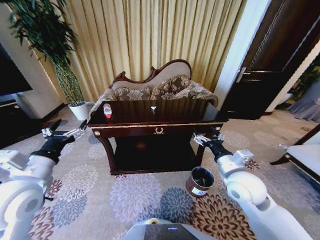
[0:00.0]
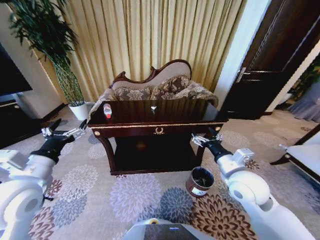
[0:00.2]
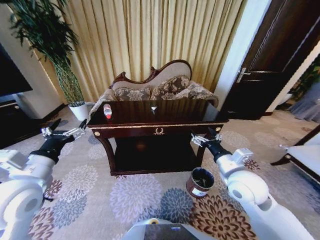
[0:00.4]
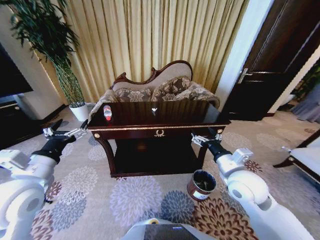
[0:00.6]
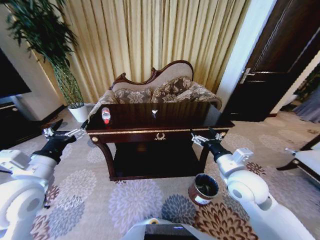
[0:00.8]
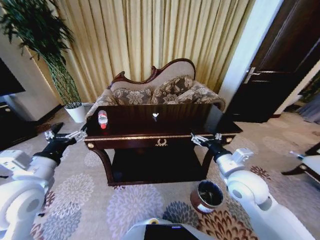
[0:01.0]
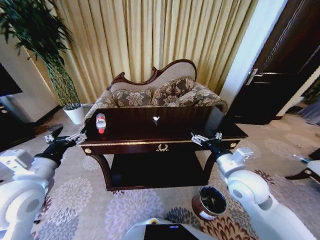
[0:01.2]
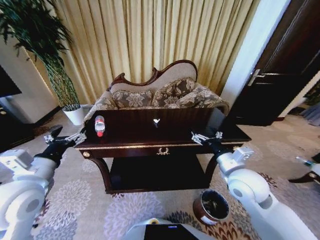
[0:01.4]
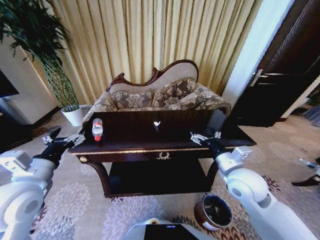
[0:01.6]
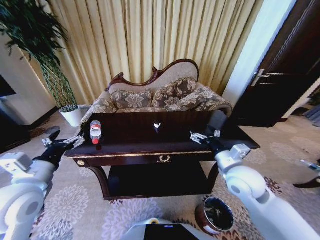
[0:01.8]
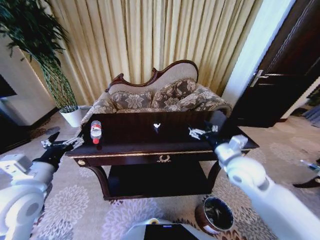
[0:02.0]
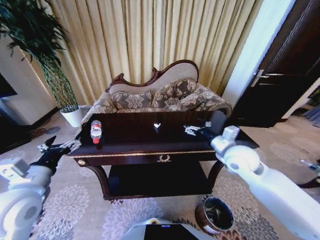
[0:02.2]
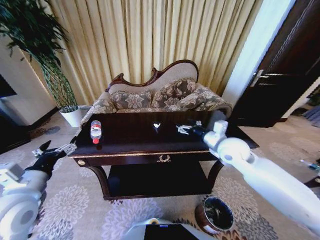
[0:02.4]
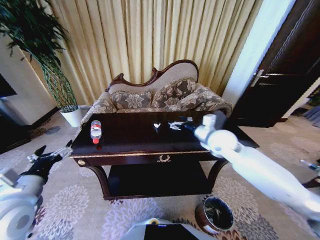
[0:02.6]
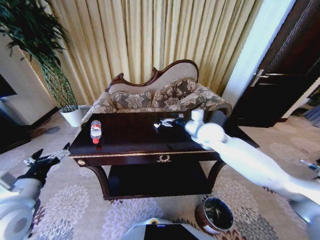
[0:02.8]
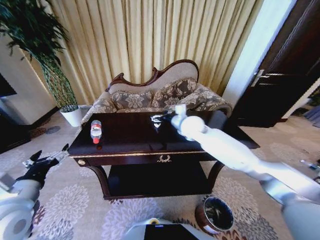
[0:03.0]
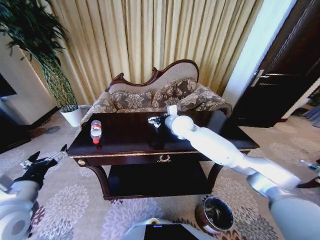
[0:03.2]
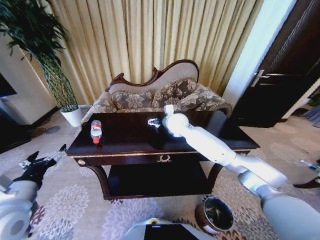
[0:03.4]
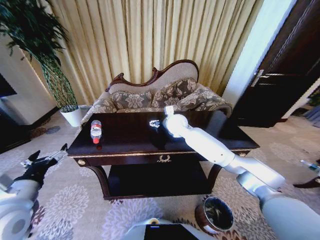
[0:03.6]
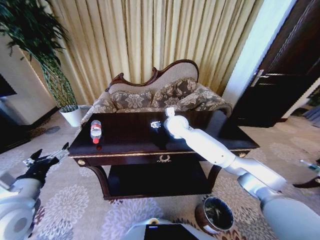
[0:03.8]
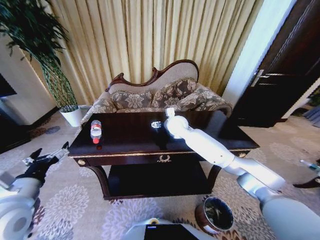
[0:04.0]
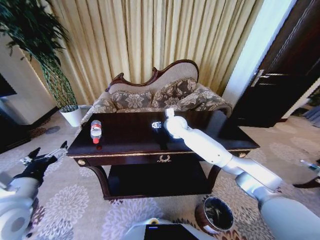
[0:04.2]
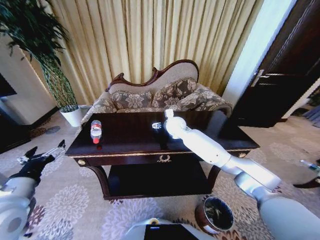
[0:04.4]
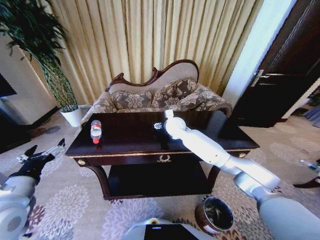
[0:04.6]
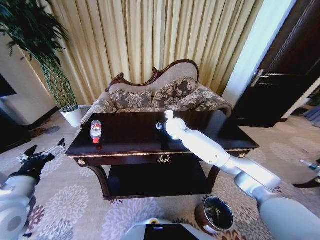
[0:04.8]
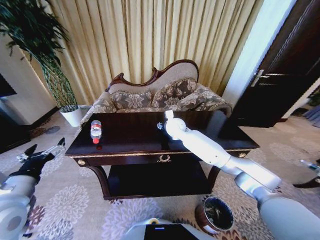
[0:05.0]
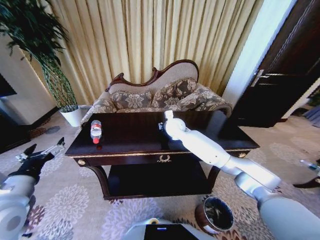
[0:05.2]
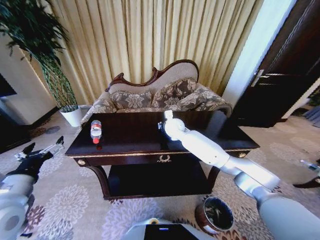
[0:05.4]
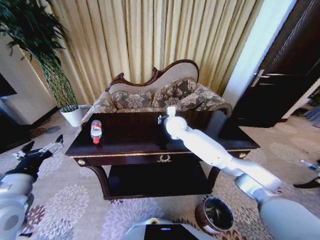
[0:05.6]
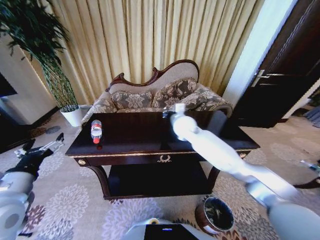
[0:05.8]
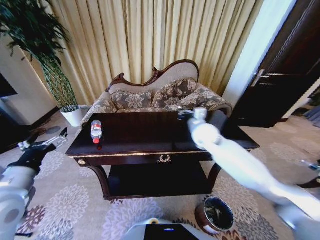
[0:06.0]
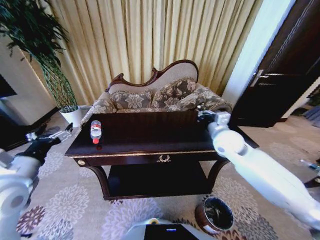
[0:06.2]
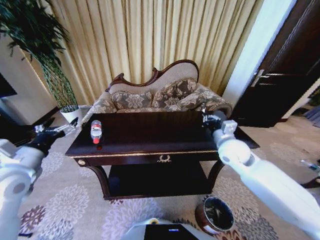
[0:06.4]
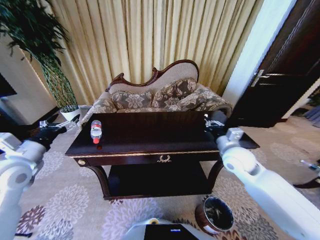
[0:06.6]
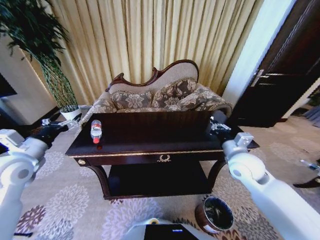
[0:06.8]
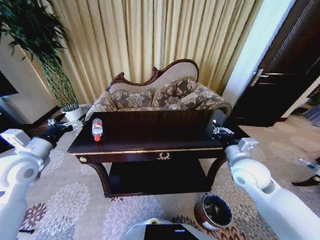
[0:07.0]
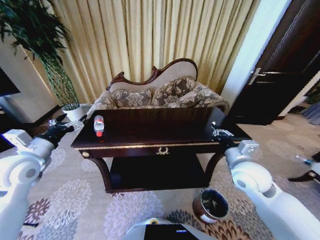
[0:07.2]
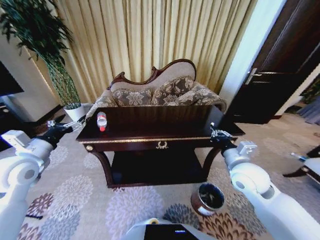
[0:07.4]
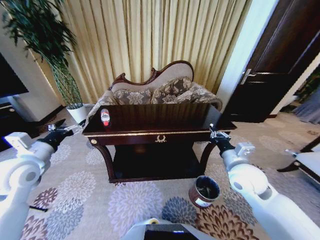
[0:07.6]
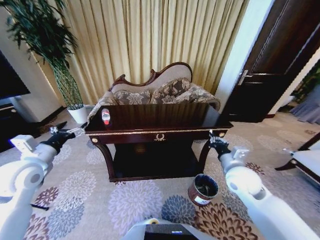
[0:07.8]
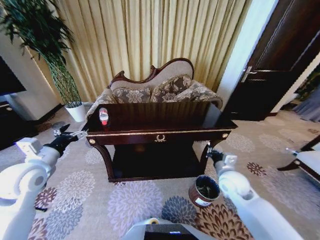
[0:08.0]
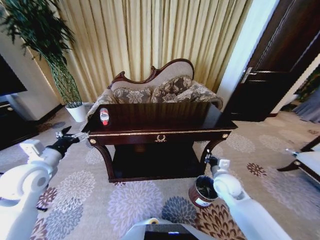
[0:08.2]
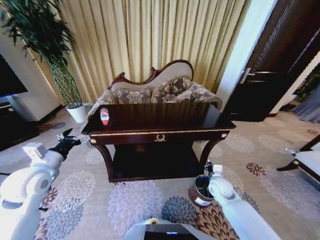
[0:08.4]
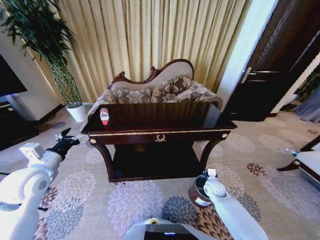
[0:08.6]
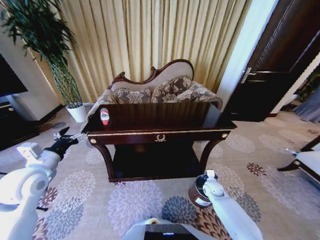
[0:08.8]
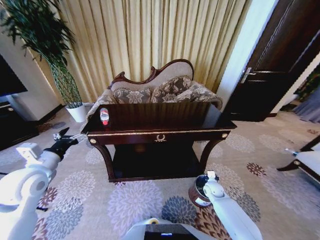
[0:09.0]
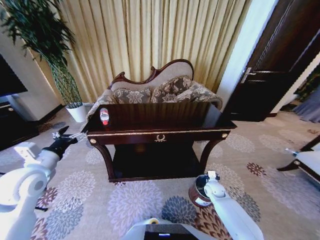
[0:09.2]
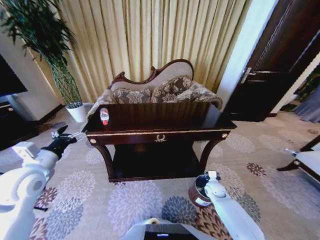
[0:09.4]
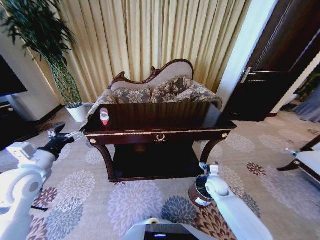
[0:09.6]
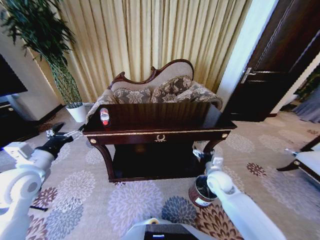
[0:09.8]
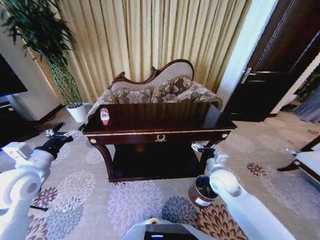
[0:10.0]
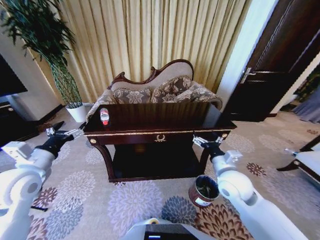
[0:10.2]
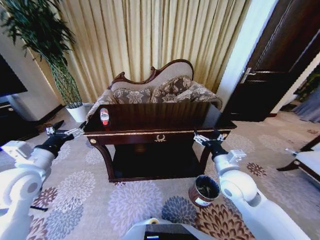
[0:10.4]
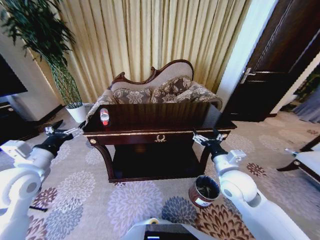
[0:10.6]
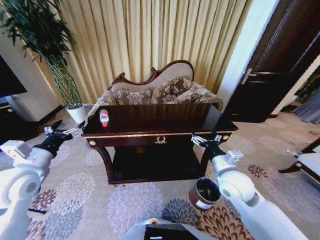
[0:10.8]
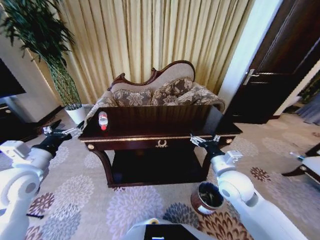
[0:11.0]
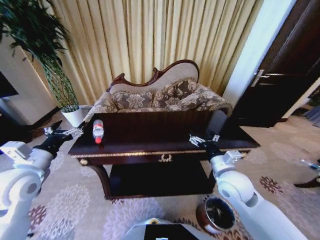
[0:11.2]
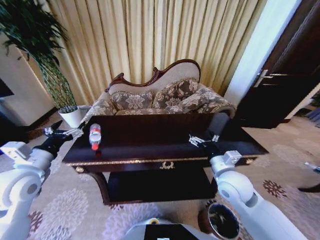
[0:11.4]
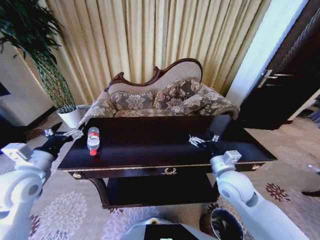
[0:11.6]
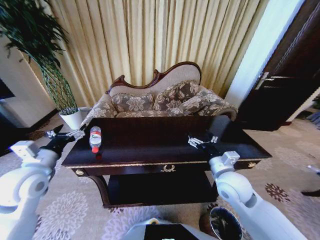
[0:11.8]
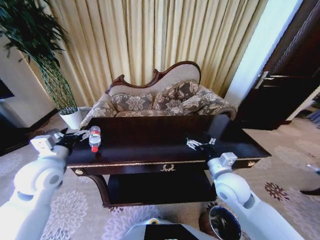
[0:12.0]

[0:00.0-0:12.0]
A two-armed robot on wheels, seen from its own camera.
Task of the whole recording: Move to the front of the table and place the trash on the table into the trash bin.
0:01.6 to 0:03.0: The right gripper goes approximately 25 cm forward and to the left. The left gripper ends up approximately 5 cm from where it was.
0:03.0 to 0:04.4: The right gripper is displaced to the left by roughly 5 cm.
0:04.4 to 0:06.0: The right gripper is displaced to the right and backward by roughly 15 cm, and closes.
0:06.0 to 0:07.6: The right gripper goes approximately 15 cm backward and to the right, while the left gripper heads forward, covering approximately 10 cm.
0:07.6 to 0:09.0: The right gripper shifts roughly 30 cm downward.
0:09.0 to 0:10.4: The right gripper travels upward by some 30 cm, and opens its fingers.
0:10.4 to 0:12.0: The left gripper changes place by approximately 5 cm.

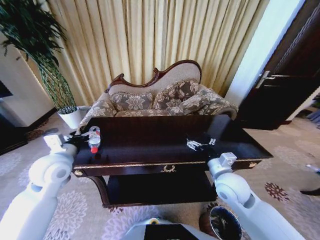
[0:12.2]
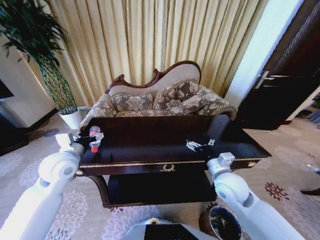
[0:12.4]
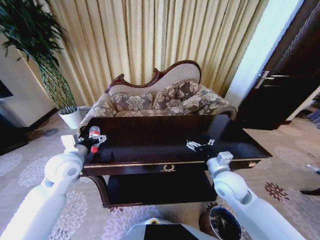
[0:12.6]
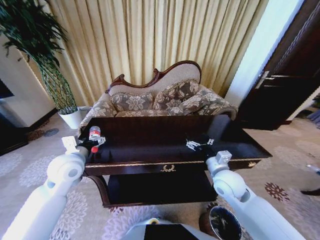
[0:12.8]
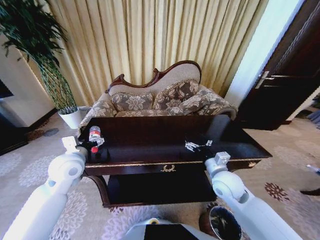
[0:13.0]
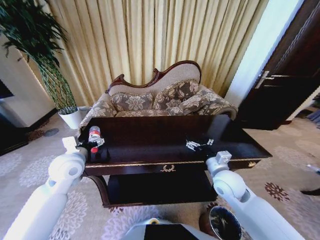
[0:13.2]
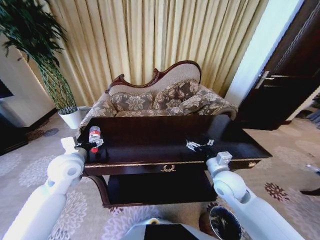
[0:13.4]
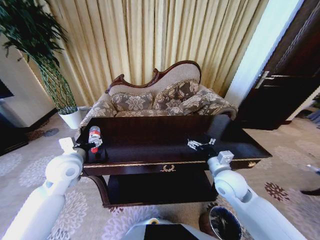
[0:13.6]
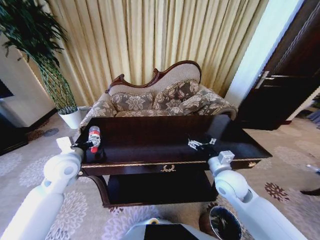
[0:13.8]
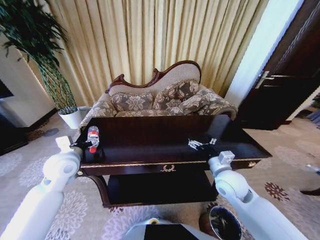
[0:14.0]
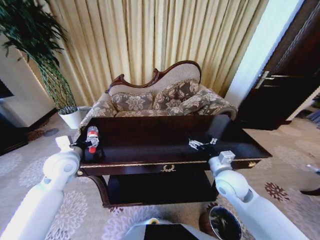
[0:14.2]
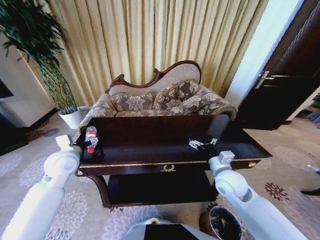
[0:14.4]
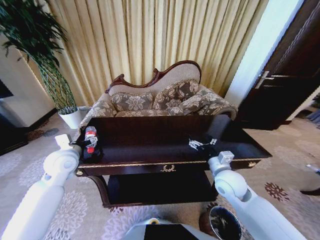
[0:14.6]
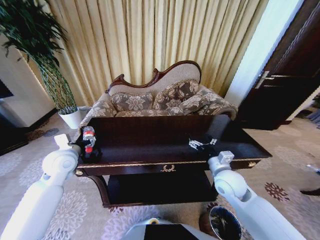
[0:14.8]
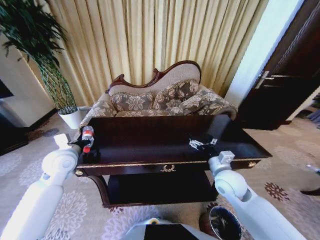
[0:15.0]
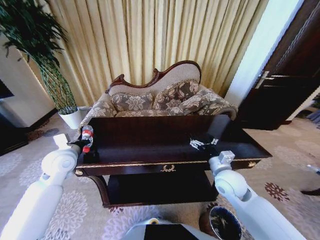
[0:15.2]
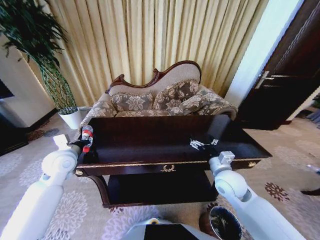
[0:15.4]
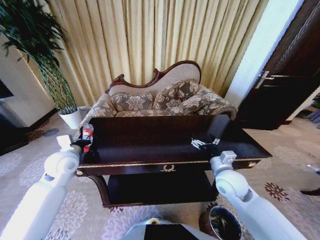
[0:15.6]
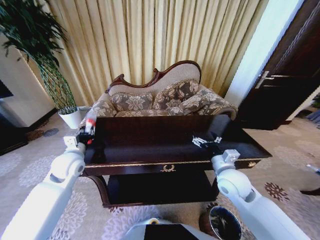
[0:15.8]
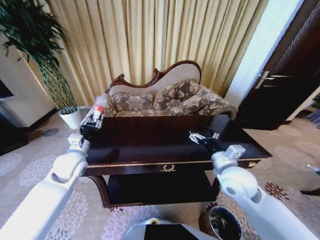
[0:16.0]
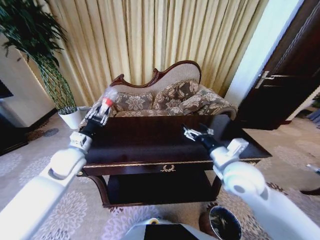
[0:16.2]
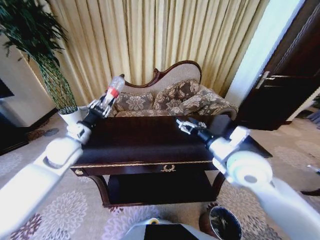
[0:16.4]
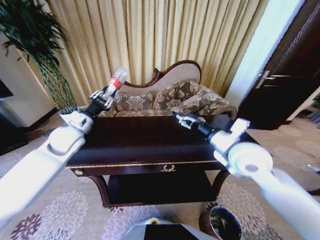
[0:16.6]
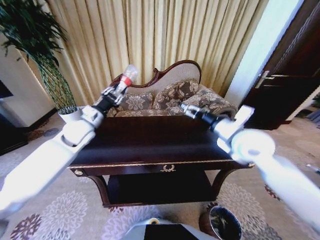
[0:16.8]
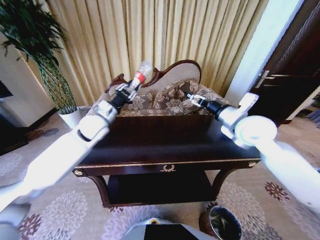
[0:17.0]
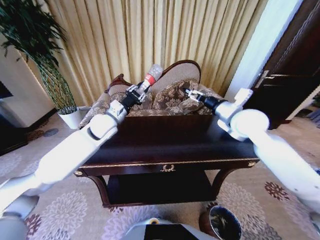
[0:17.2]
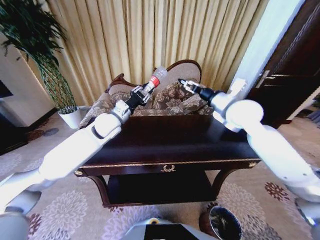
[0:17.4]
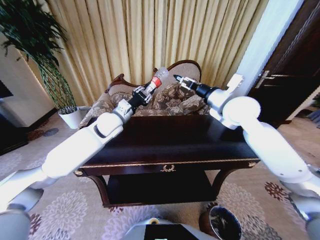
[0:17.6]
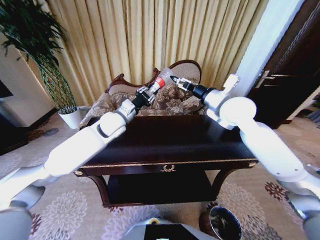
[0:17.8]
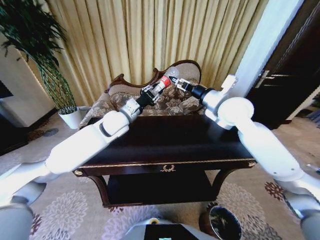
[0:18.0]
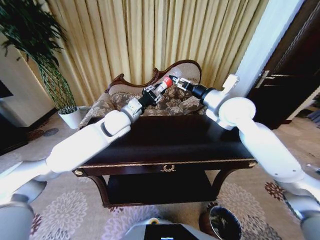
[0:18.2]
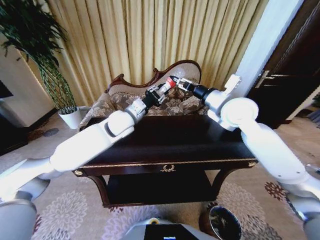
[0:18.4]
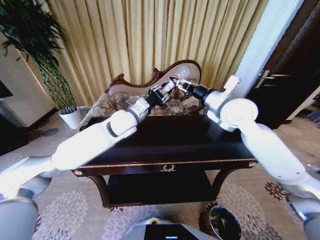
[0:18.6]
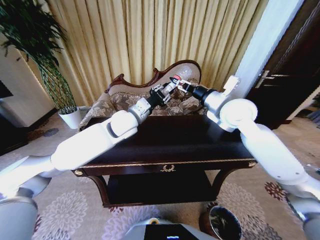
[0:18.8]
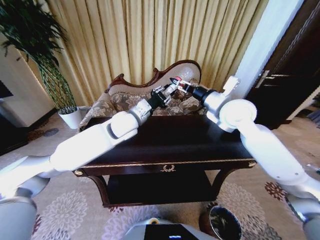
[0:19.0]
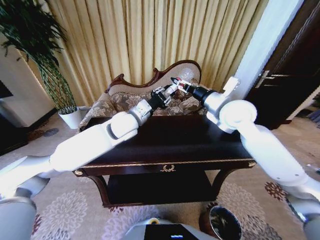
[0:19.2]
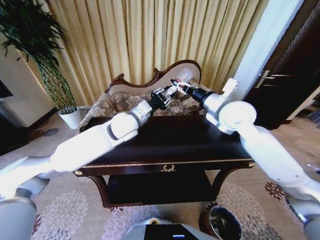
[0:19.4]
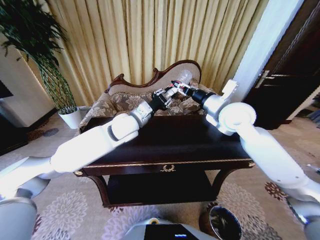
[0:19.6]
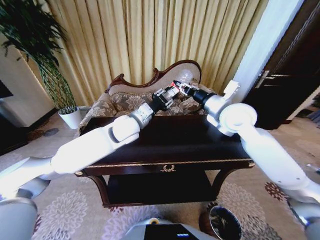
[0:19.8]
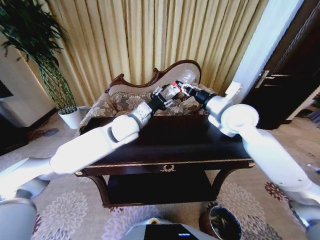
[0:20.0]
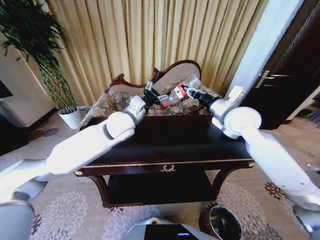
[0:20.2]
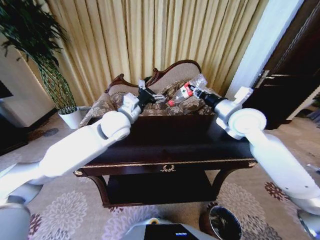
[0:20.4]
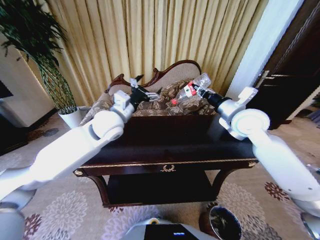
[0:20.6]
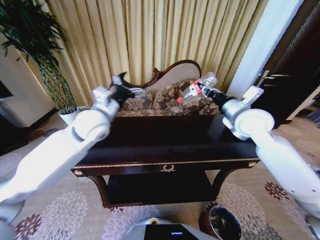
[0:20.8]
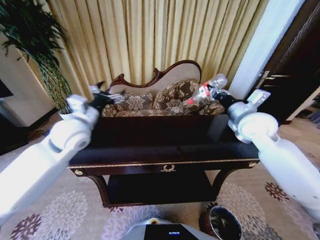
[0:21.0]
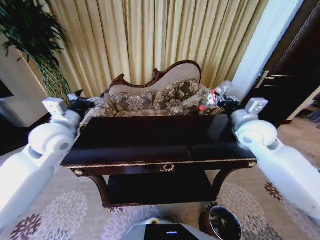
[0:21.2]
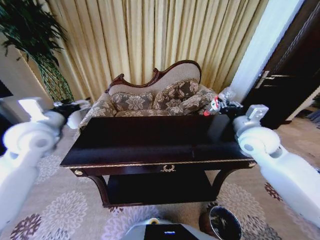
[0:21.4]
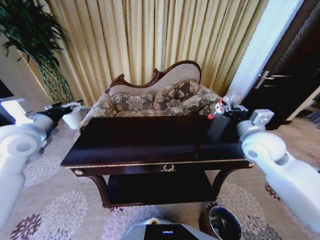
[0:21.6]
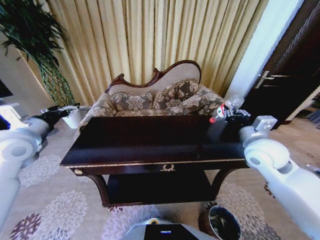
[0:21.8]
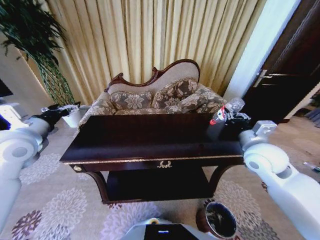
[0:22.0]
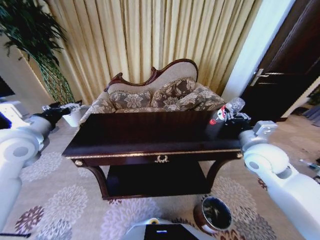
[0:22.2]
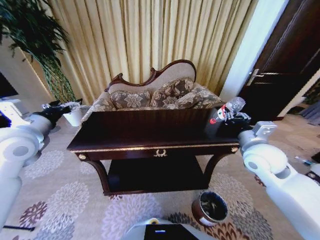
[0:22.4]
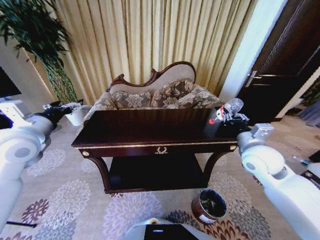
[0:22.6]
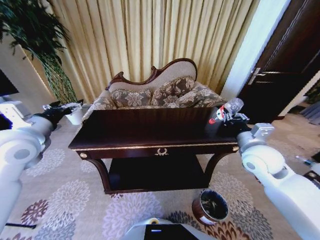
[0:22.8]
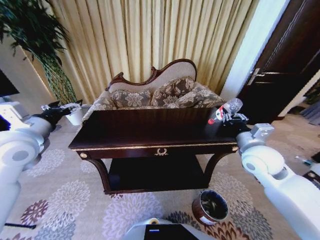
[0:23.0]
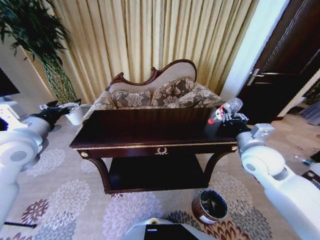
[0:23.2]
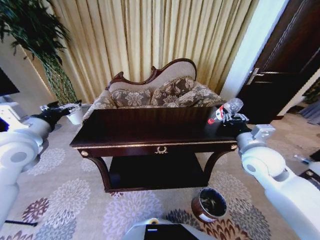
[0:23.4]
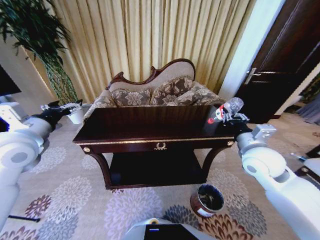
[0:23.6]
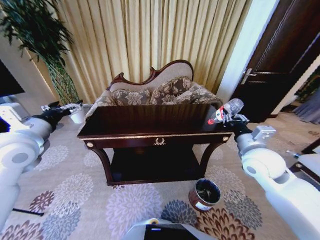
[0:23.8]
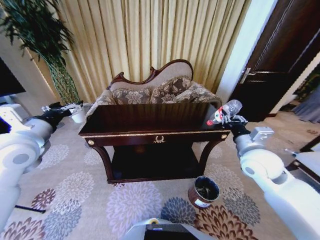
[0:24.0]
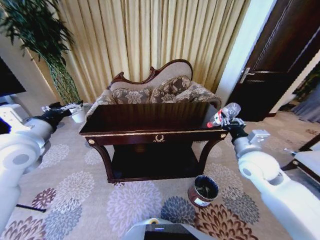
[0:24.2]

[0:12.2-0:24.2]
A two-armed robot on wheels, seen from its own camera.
Task of the whole recording: Move to the front of the table and place the trash on the table into the trash bin.
0:12.2 to 0:13.8: The grippers stay close to where they were, moving slightly.
0:13.8 to 0:15.2: The left gripper closes.
0:15.2 to 0:16.6: The left gripper shifts some 10 cm forward and upward. Meanwhile the right gripper travels upward by about 15 cm.
0:16.6 to 0:18.2: The right gripper is displaced forward and upward by roughly 15 cm. The left gripper travels to the right by some 15 cm.
0:18.2 to 0:19.8: The right gripper closes.
0:19.8 to 0:21.2: The right gripper is displaced to the right by about 10 cm. The left gripper heads to the left, covering roughly 20 cm, and opens its fingers.
0:21.2 to 0:22.6: The right gripper travels backward and downward by approximately 10 cm; the left gripper shifts roughly 5 cm to the left.
